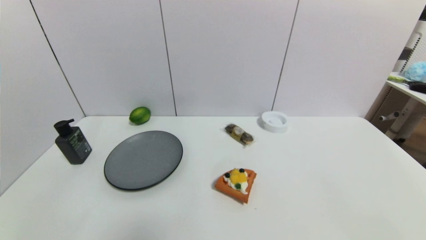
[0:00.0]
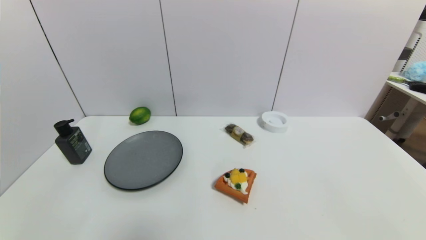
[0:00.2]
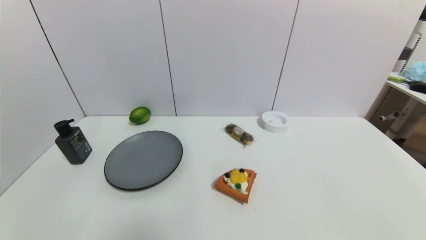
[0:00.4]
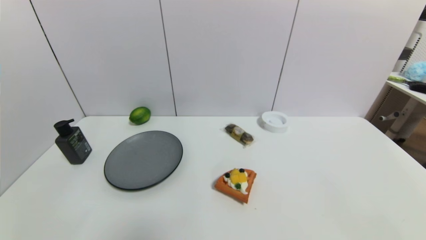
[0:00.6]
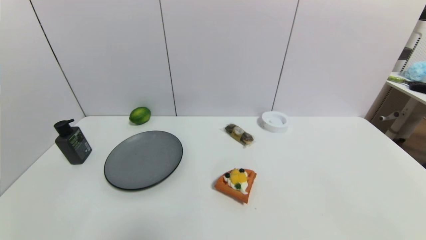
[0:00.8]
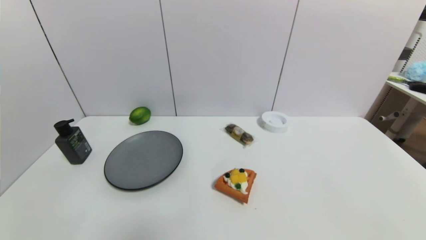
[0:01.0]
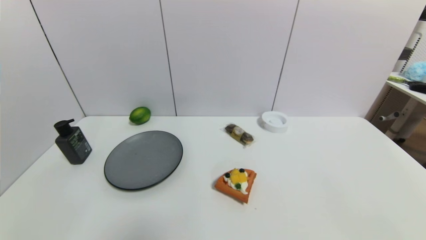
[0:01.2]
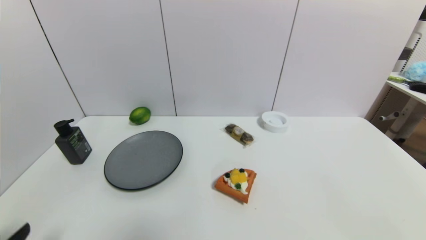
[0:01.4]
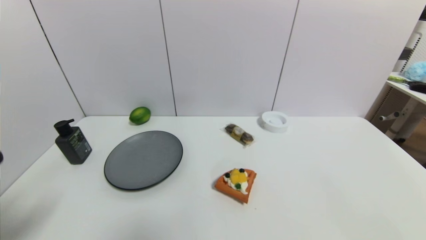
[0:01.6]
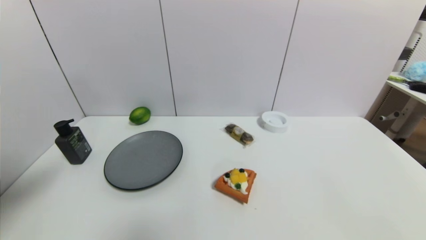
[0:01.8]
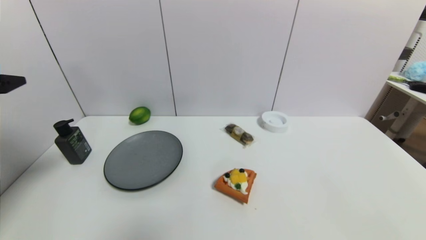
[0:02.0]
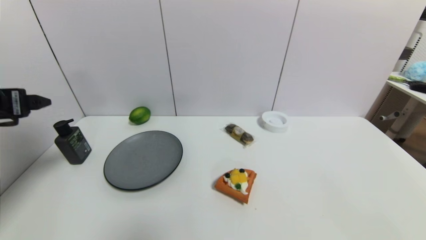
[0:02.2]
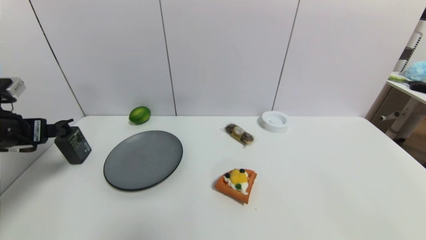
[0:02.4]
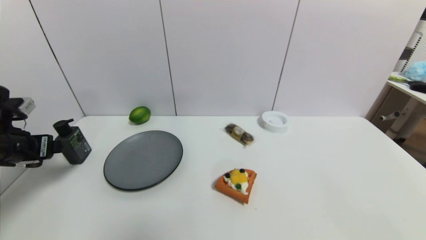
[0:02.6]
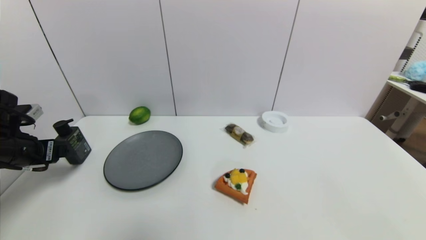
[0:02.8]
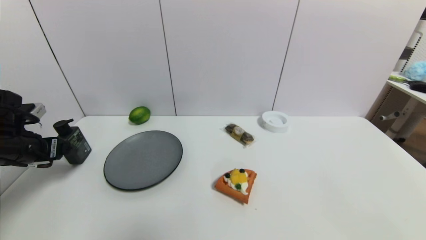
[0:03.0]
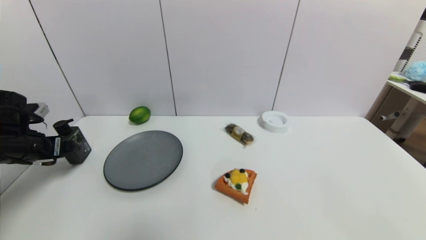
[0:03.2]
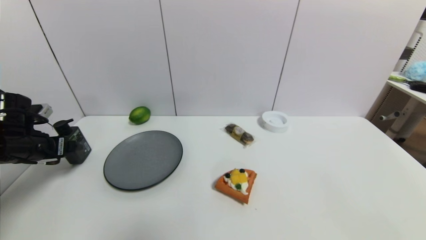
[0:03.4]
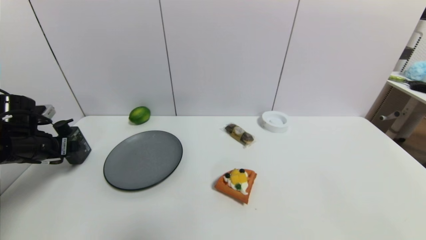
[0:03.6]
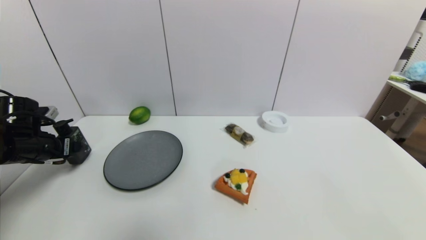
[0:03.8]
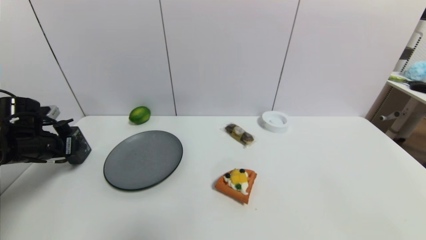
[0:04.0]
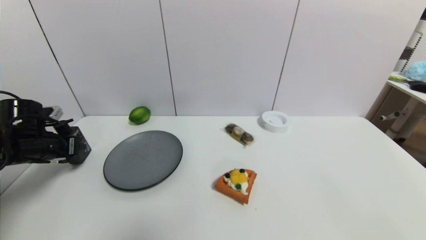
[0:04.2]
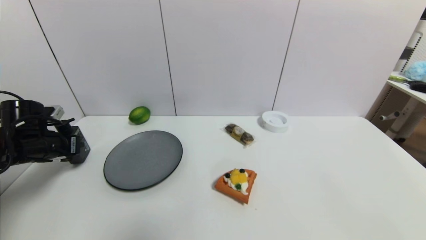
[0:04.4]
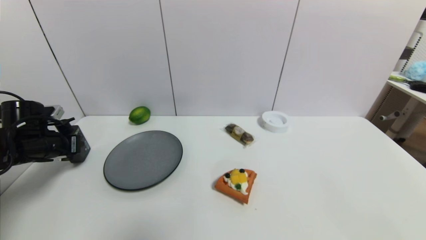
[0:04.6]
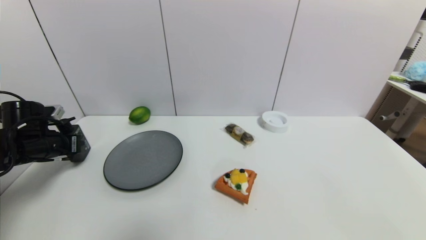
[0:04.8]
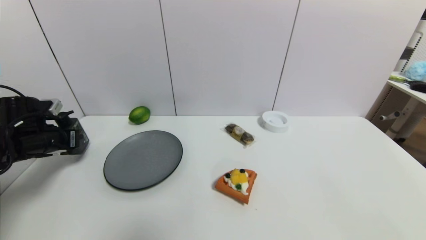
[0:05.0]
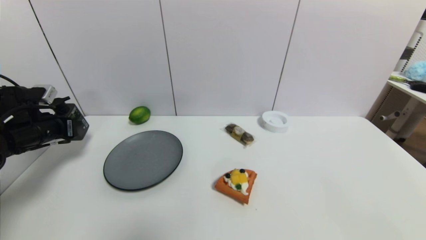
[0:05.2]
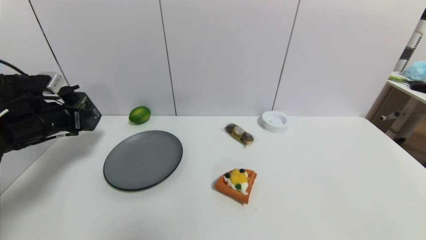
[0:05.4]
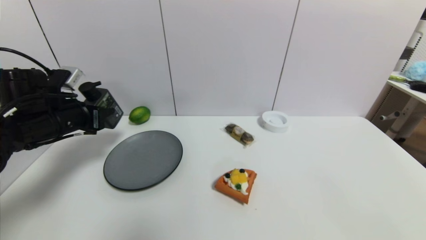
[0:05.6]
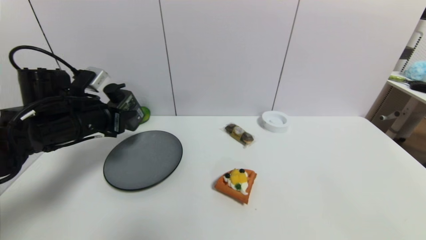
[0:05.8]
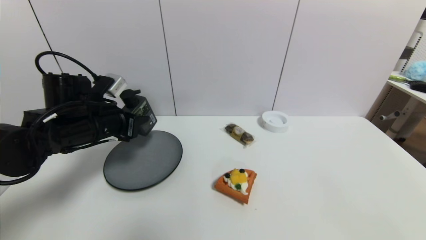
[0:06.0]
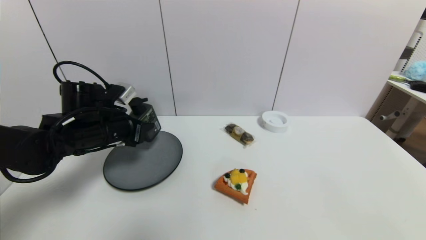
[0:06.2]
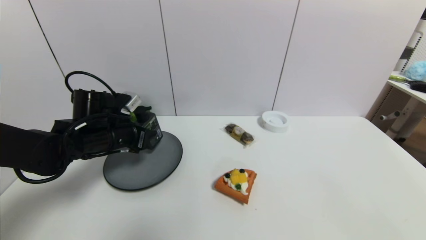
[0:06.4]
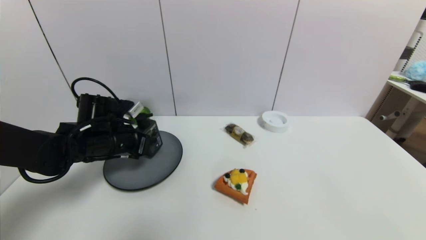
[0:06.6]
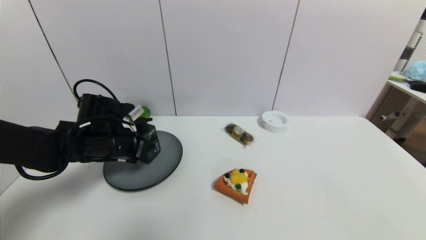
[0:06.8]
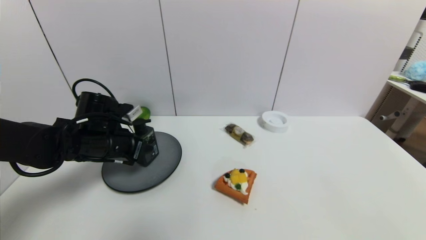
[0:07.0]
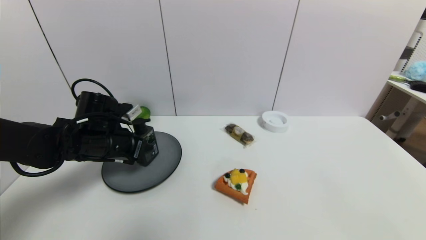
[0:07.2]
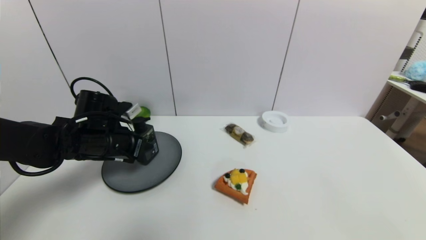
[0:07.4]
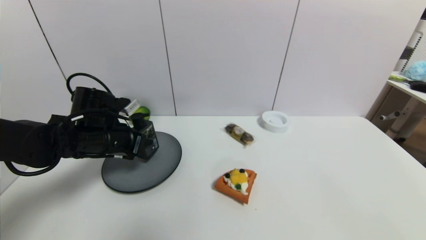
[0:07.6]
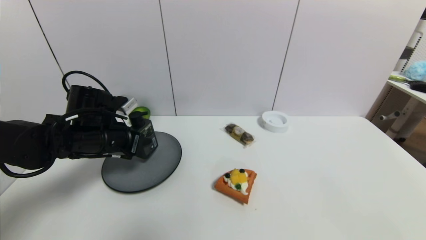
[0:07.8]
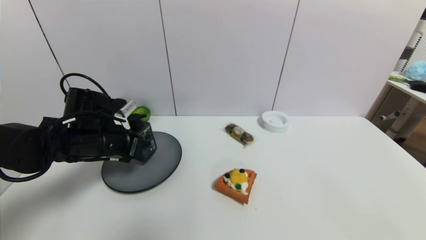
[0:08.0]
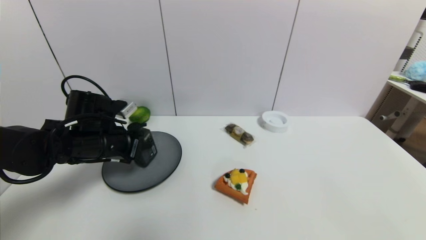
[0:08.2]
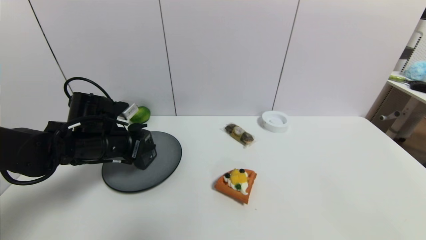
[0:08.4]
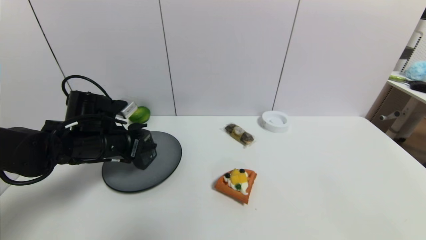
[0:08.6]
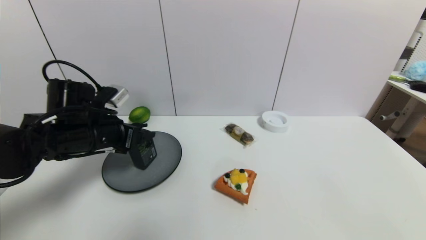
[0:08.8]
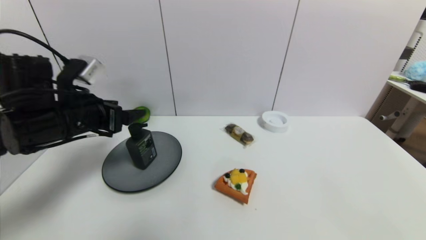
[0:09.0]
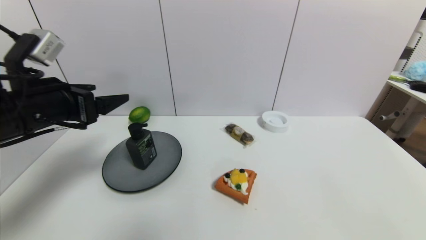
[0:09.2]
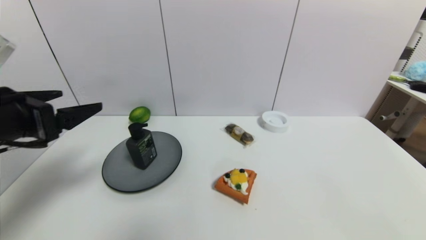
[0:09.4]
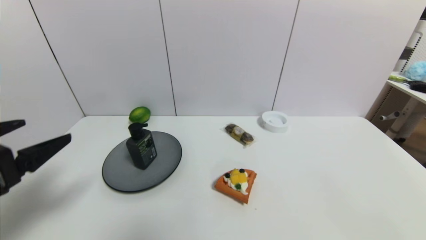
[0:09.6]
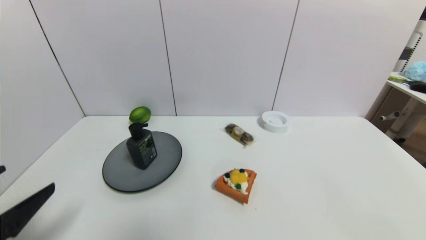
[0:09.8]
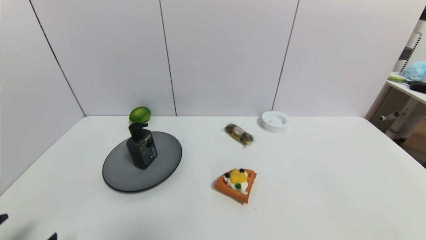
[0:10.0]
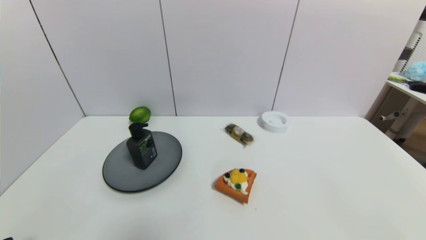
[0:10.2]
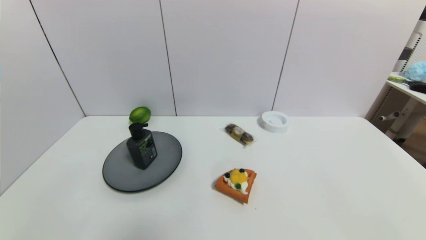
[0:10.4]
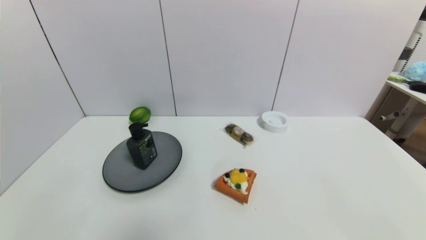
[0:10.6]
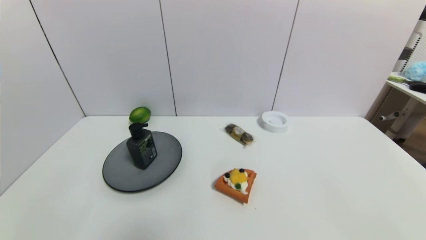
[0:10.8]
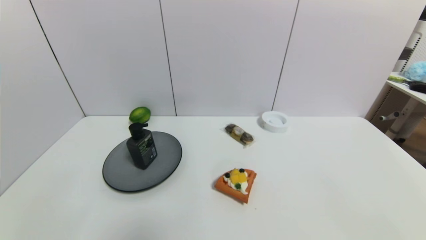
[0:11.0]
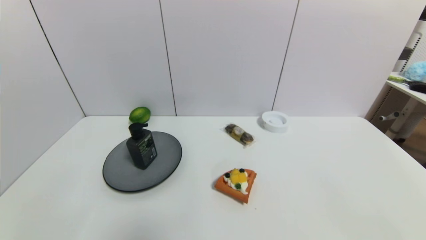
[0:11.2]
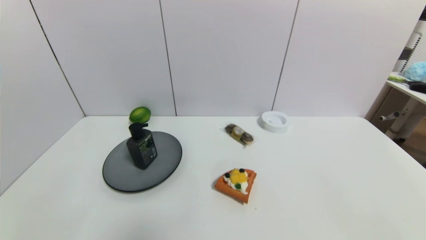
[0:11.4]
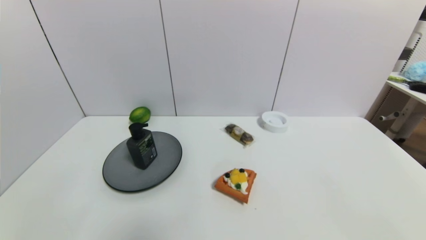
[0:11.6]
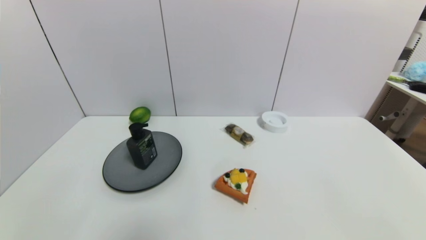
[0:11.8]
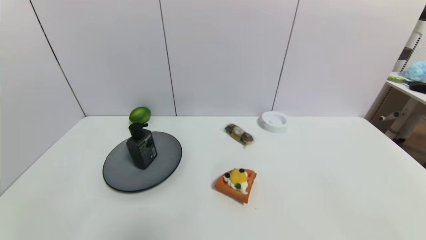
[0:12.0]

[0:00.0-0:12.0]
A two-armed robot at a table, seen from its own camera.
Task of the whole recording: use a gripper to pick the target object and place on the gray plate.
Step, 0:00.0 to 0:04.2: Grasp the hard facial cleanser with the left gripper.
Step, 0:04.4 to 0:08.8: Place the hard facial cleanser on the gray plate with the left gripper.
0:00.0 to 0:01.6: The left gripper shifts about 20 cm upward.
0:01.6 to 0:03.0: The left gripper travels forward and downward by about 25 cm.
0:03.0 to 0:04.4: The left gripper ends up some 5 cm from where it was, and closes its fingers.
0:04.4 to 0:06.0: The left gripper is displaced to the right by approximately 15 cm.
0:06.0 to 0:07.6: The grippers move only a little.
0:07.6 to 0:09.0: The left gripper goes some 10 cm upward and backward, and opens its fingers.
0:09.0 to 0:10.4: The left gripper goes some 30 cm backward and downward.
